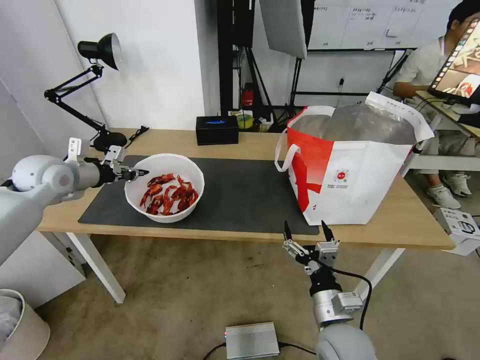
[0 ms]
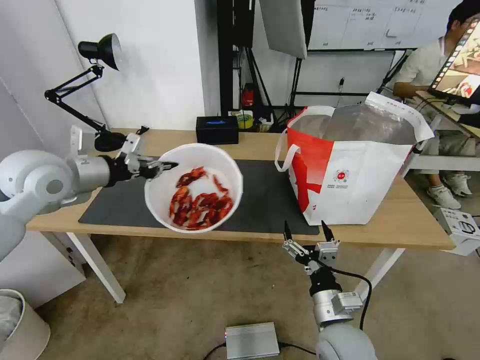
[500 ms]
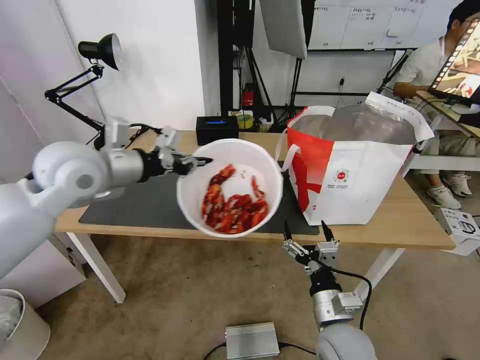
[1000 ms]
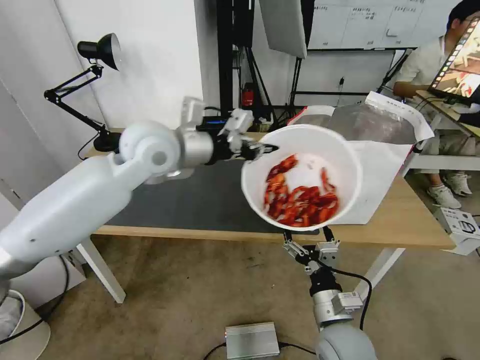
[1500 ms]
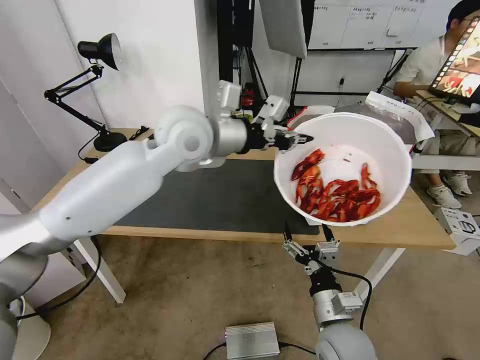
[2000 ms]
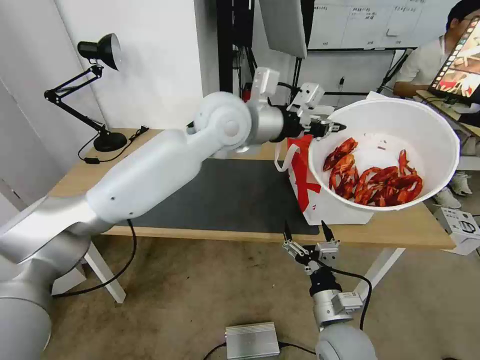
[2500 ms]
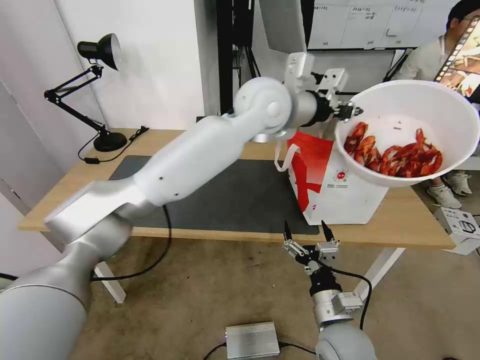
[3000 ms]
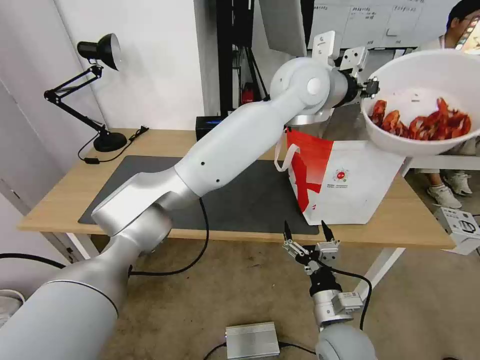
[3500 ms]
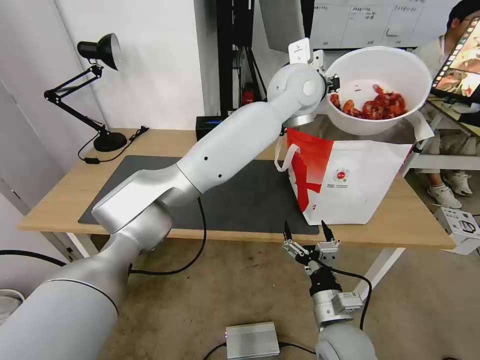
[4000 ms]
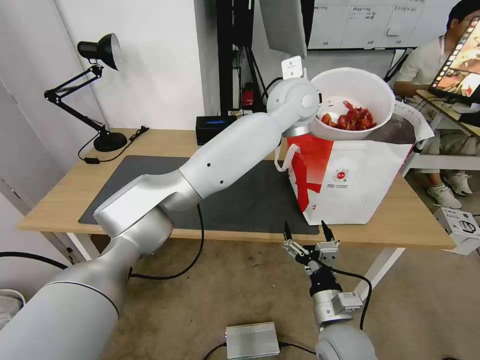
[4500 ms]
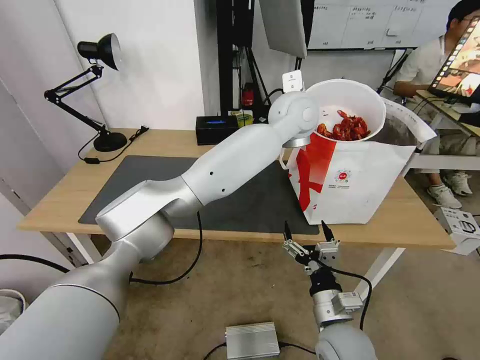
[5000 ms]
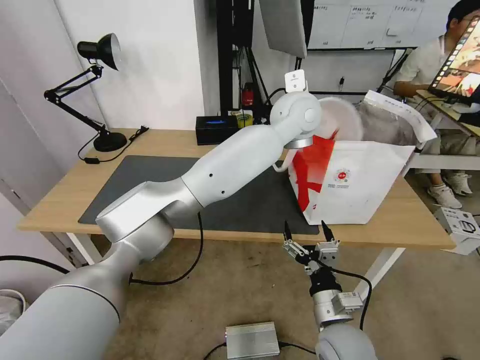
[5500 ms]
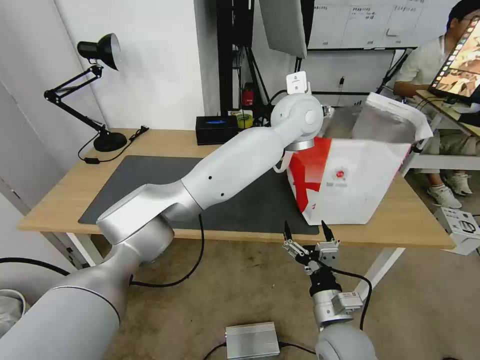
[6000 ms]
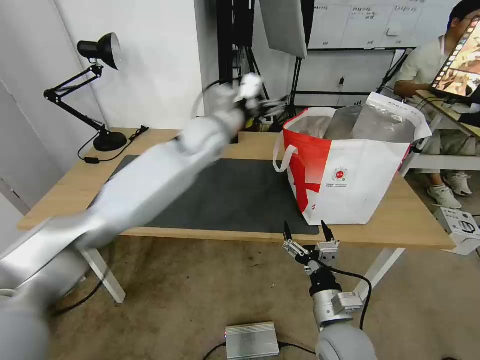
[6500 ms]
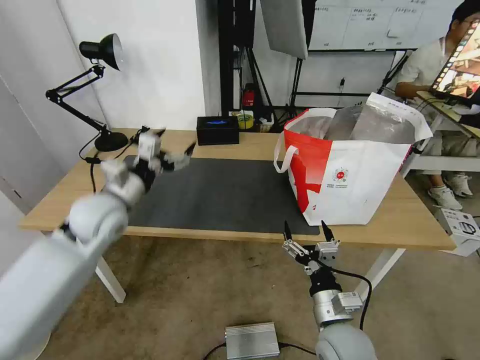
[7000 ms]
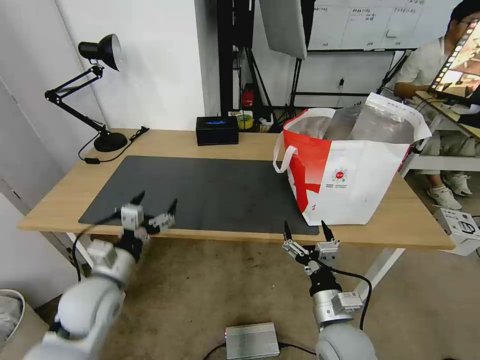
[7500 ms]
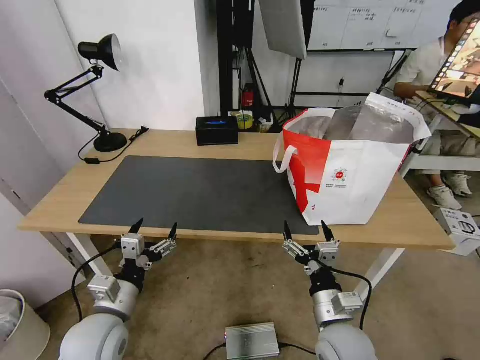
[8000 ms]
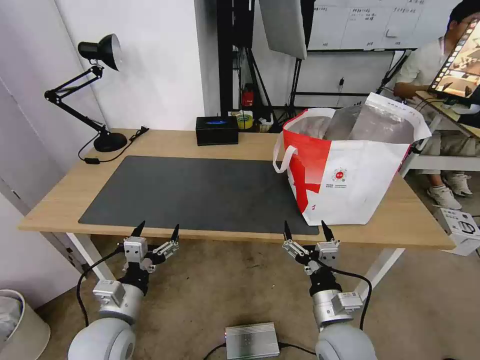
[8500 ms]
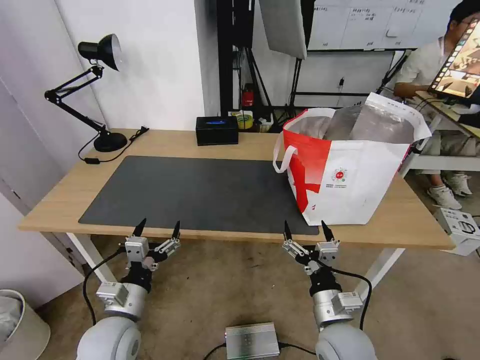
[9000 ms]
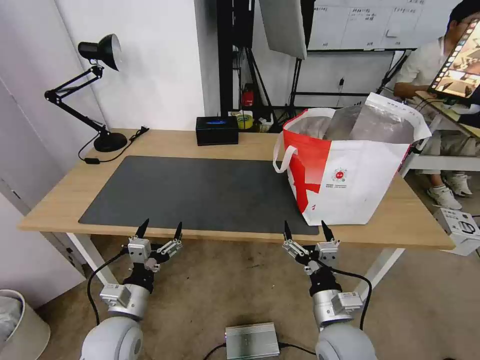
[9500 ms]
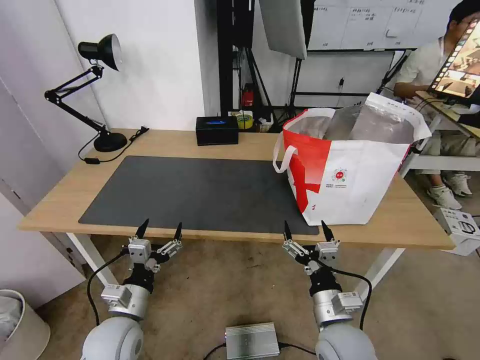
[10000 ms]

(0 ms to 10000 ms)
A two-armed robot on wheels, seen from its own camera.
Task of the whole recording: Pick up the trash from the table and place it into the takeout bag.
0 ms - 2000 ms: The left gripper moves to the right, roughly 30 cm.
2000 ms - 4000 ms: The left gripper travels to the right and forward by about 20 cm.
4000 ms - 6000 ms: The left gripper is displaced downward by roughly 5 cm, and opens up.
6000 ms - 8000 ms: The left gripper is displaced to the left, backward and downward by approximately 60 cm.
8000 ms - 10000 ms: The grippers make only small movements.

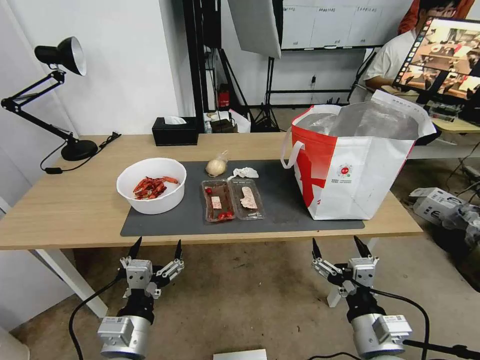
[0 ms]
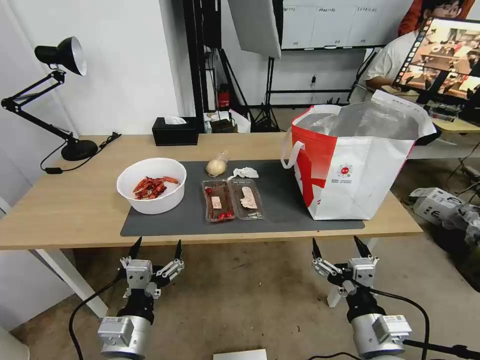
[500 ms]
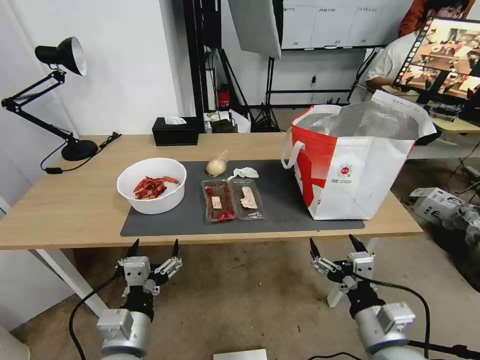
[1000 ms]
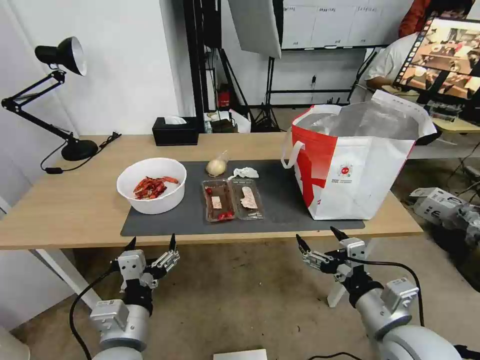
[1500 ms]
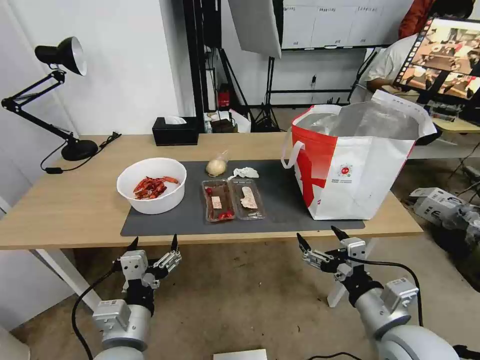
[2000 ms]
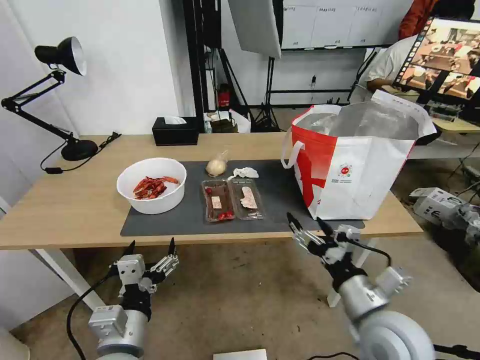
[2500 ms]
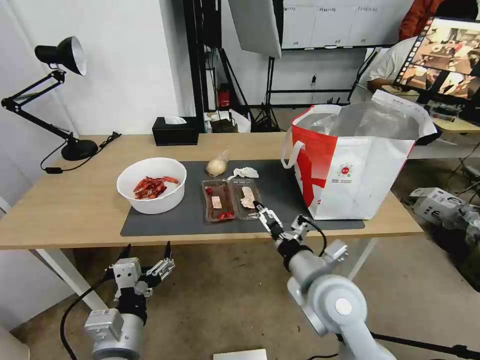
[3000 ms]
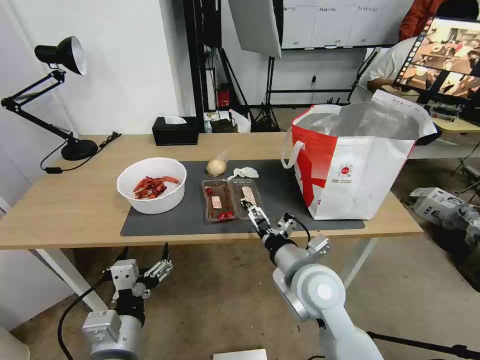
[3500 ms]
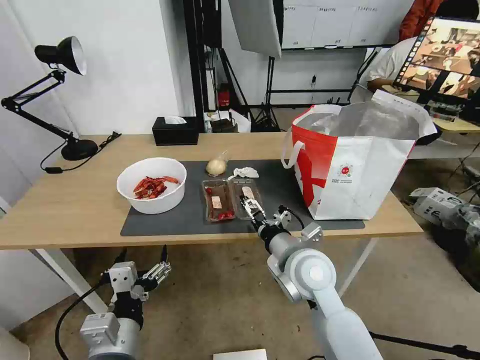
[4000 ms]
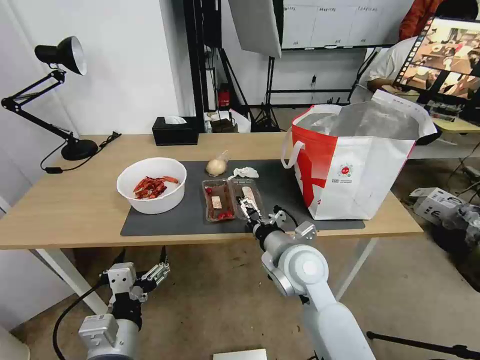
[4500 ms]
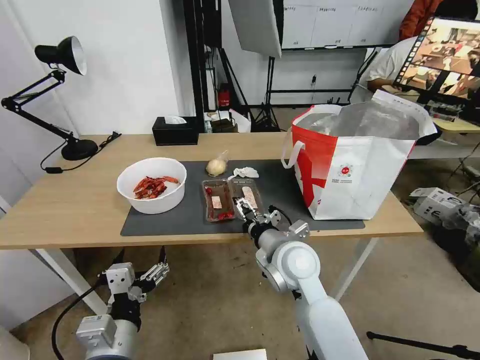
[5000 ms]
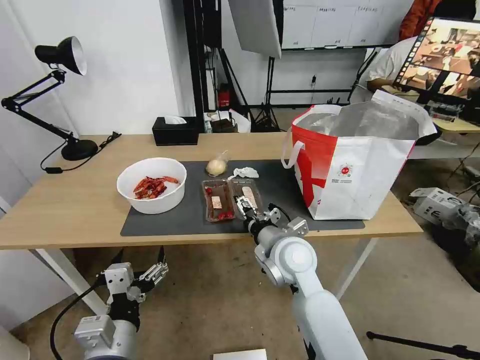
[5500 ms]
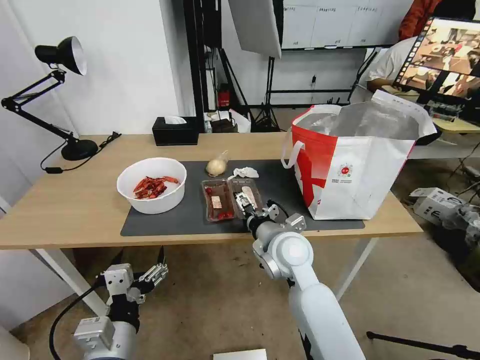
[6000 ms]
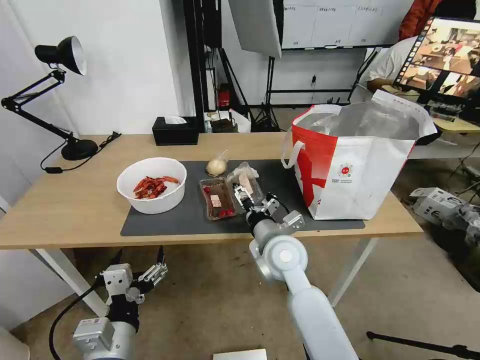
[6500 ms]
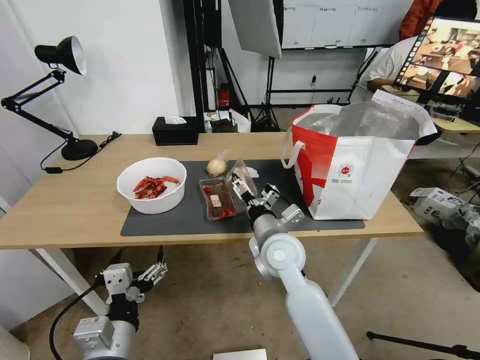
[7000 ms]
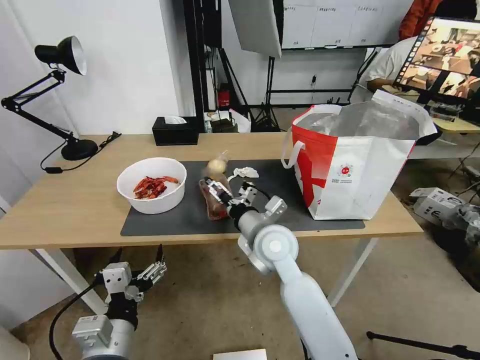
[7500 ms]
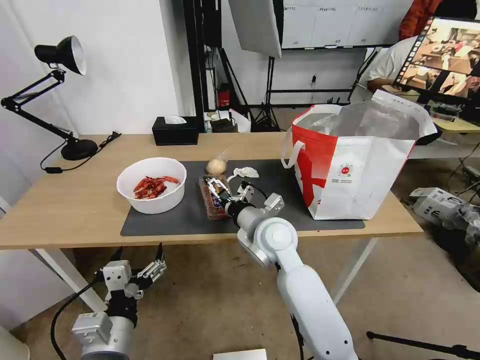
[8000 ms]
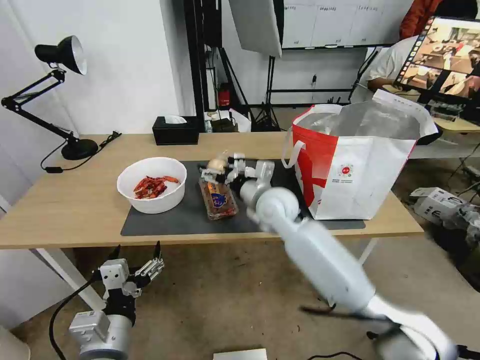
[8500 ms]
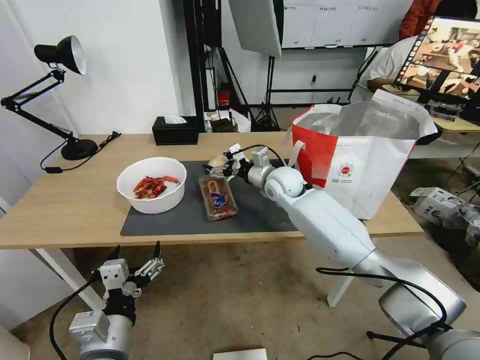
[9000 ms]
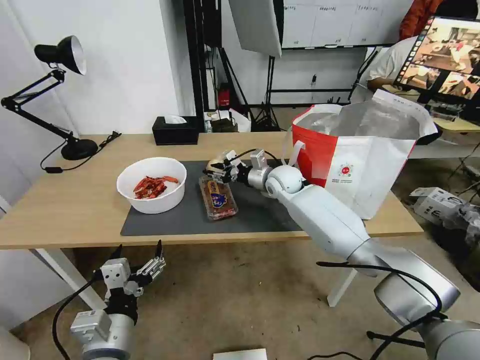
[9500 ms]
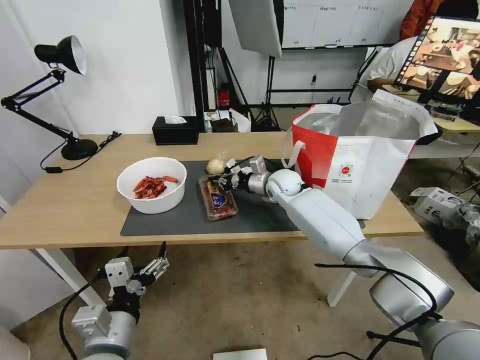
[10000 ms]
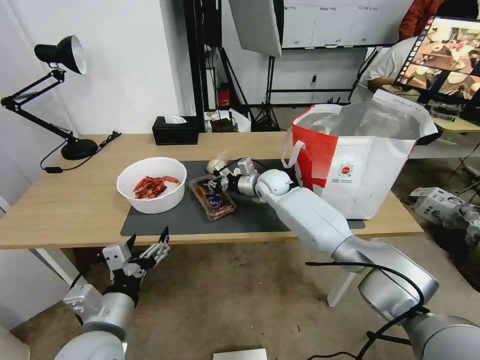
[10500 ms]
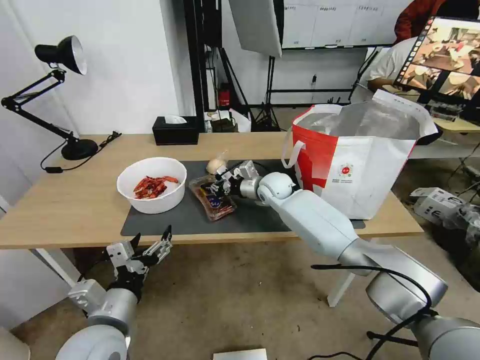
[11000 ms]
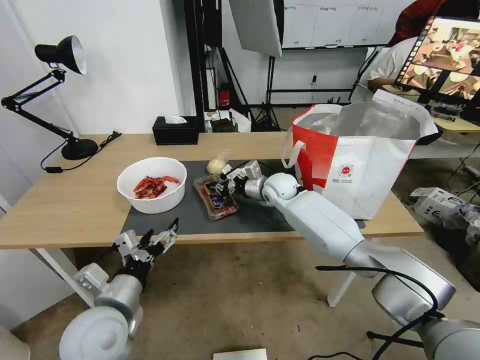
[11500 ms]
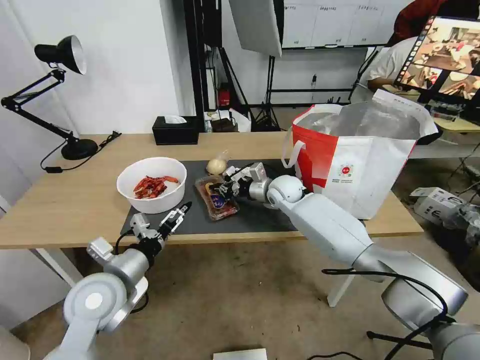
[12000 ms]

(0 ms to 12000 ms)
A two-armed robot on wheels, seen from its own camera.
Task of the whole recording: Pick up the trash from the table and place it into the takeout bag.
2000 ms - 4000 ms: The right gripper travels to the left and forward by approximately 20 cm.
4000 ms - 6000 ms: The right gripper shifts by about 5 cm.
8000 ms - 10000 ms: The right gripper shifts approximately 20 cm forward, and closes up.
10000 ms - 12000 ms: The left gripper moves forward, about 10 cm.

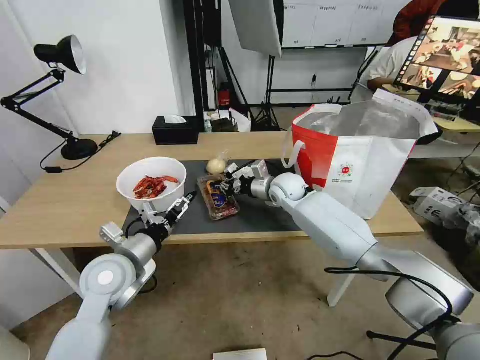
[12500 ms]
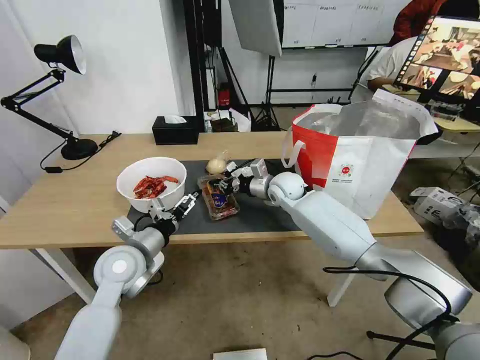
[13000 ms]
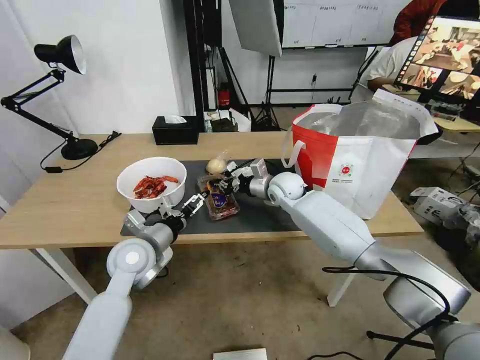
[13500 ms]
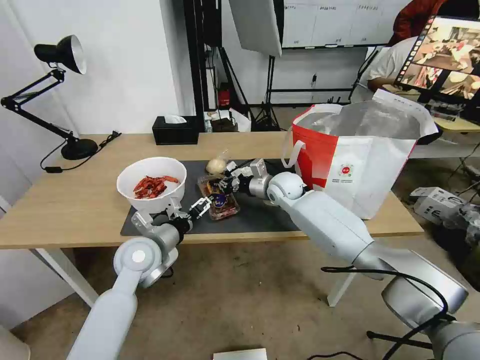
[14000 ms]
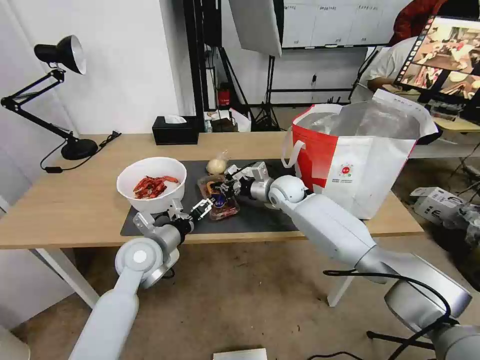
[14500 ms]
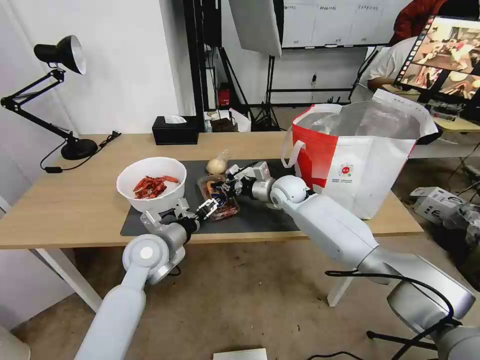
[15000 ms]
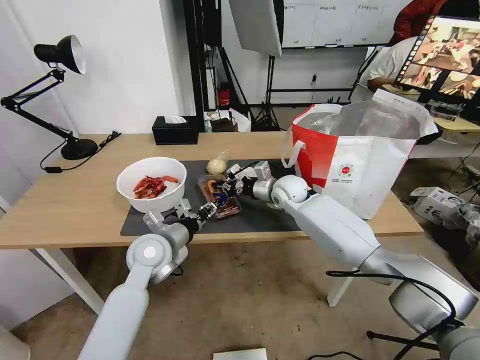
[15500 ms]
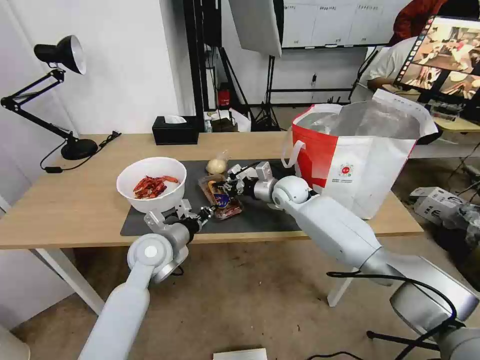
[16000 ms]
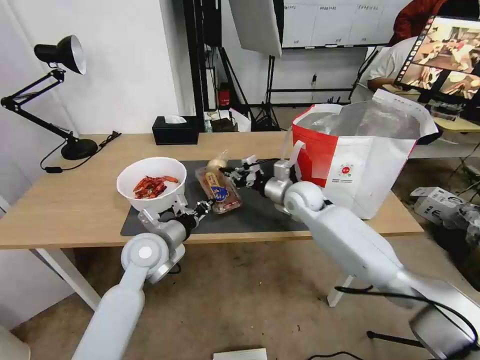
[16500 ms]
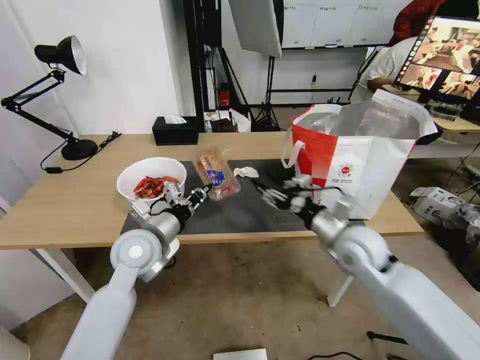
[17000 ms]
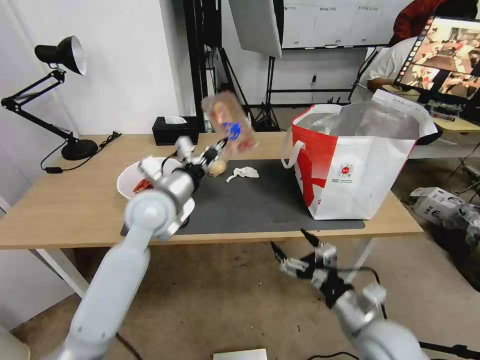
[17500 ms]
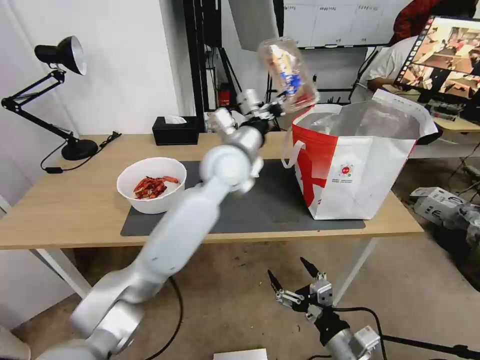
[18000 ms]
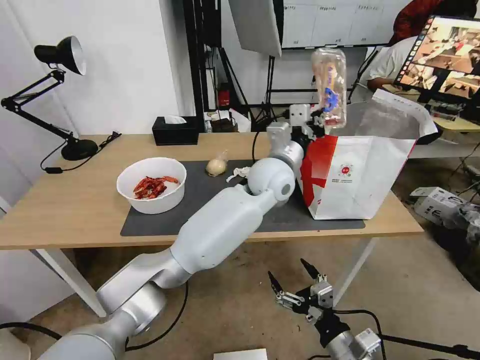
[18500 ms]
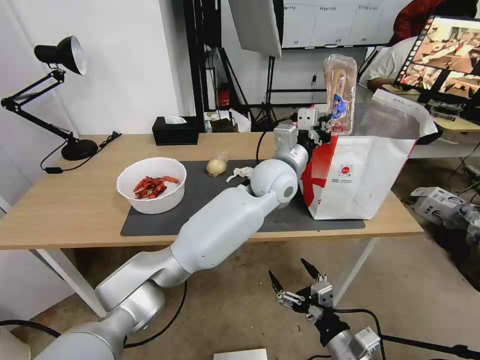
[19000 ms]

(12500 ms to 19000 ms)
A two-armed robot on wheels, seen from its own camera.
Task of the whole recording: Pick up the trash from the table and place it into the takeout bag.
12500 ms - 14500 ms: The left gripper shifts approximately 5 cm forward.
14500 ms - 17000 ms: The left gripper closes, while the right gripper moves backward and to the right, roughly 25 cm, and opens up.
17000 ms - 19000 ms: The right gripper goes approximately 25 cm backward and downward, and opens its fingers. Meanwhile the left gripper moves to the right and forward, some 30 cm.